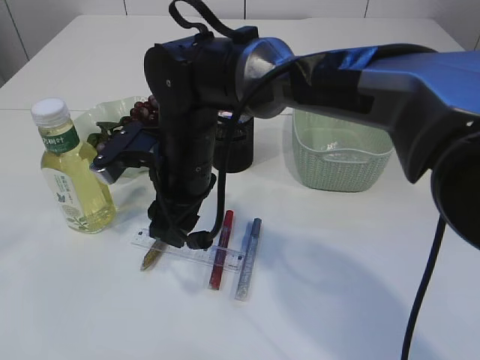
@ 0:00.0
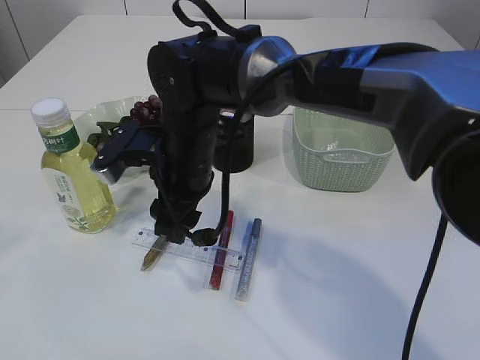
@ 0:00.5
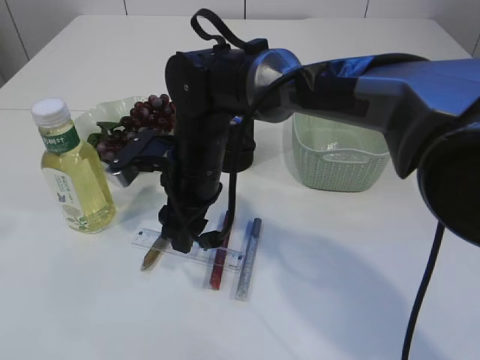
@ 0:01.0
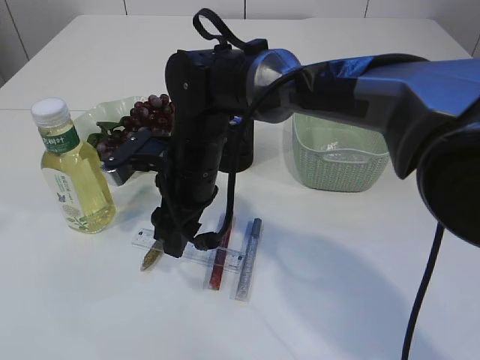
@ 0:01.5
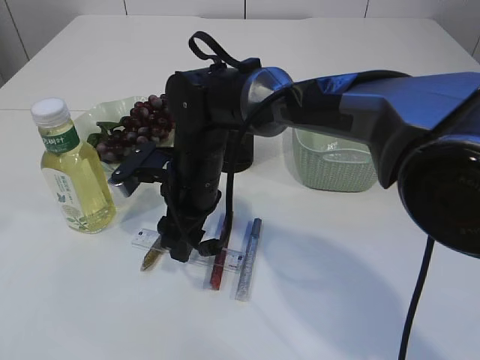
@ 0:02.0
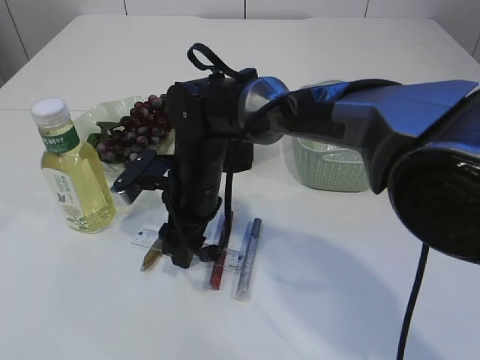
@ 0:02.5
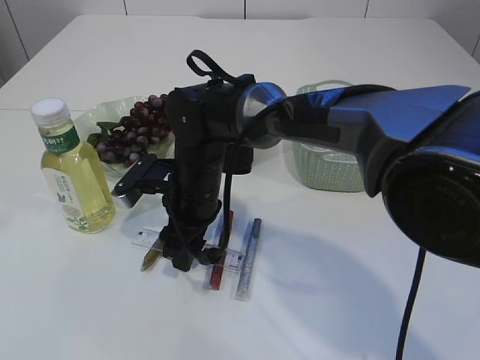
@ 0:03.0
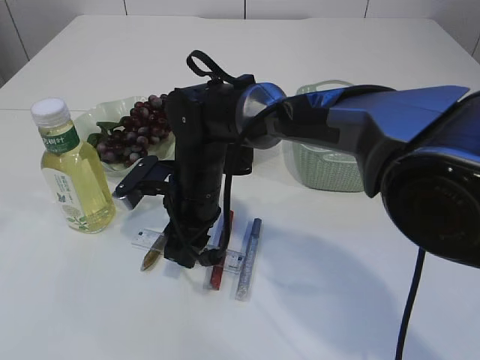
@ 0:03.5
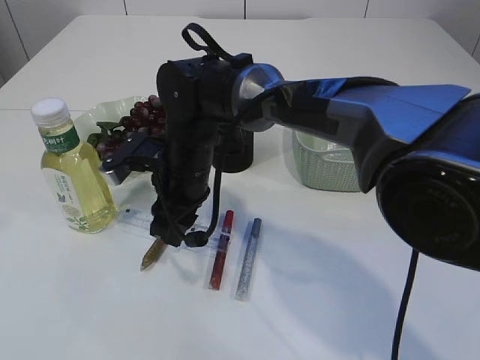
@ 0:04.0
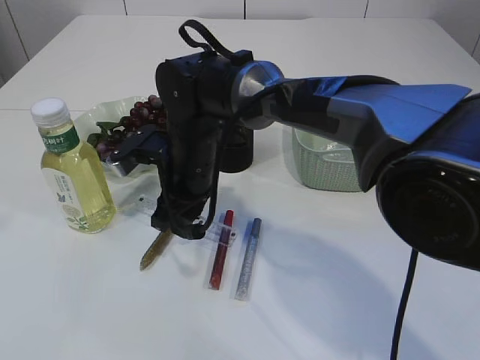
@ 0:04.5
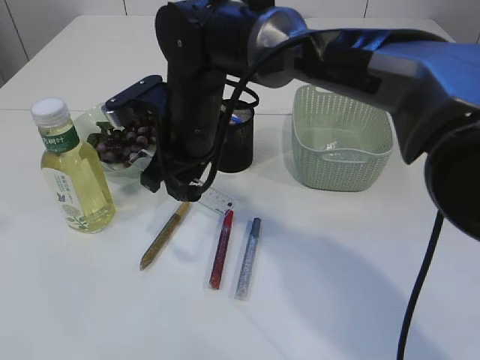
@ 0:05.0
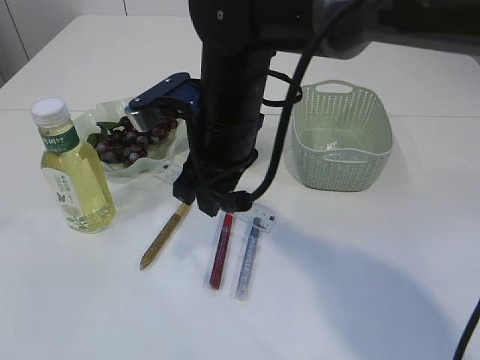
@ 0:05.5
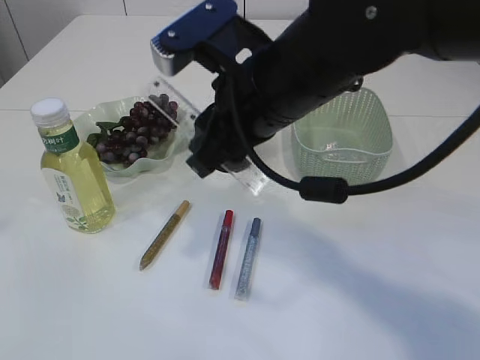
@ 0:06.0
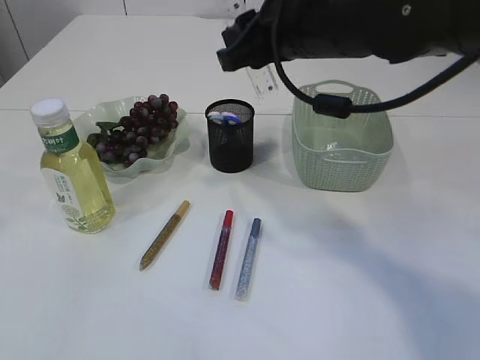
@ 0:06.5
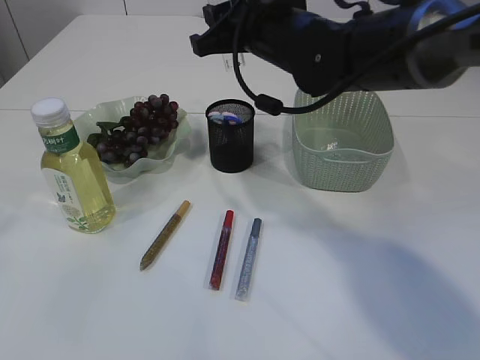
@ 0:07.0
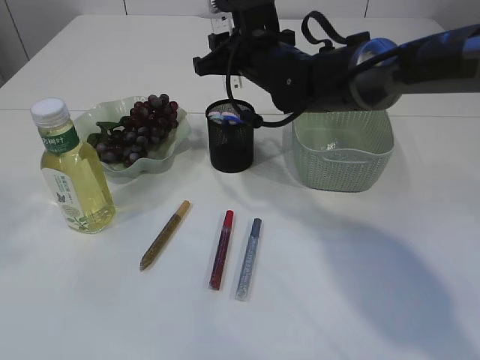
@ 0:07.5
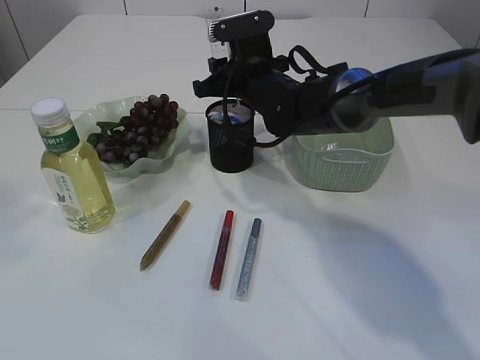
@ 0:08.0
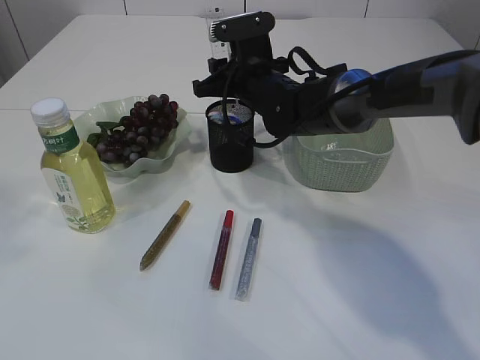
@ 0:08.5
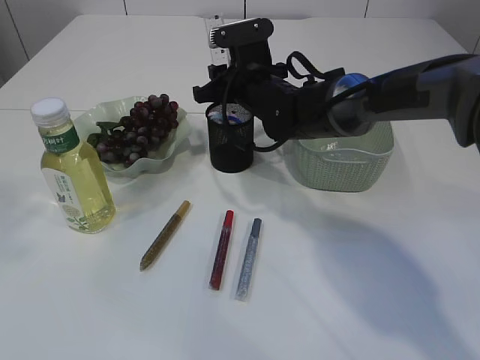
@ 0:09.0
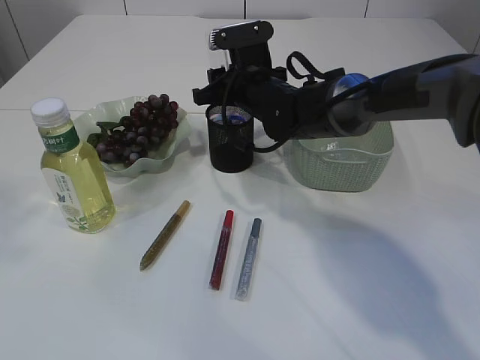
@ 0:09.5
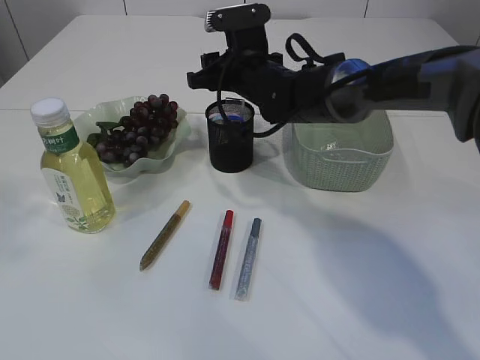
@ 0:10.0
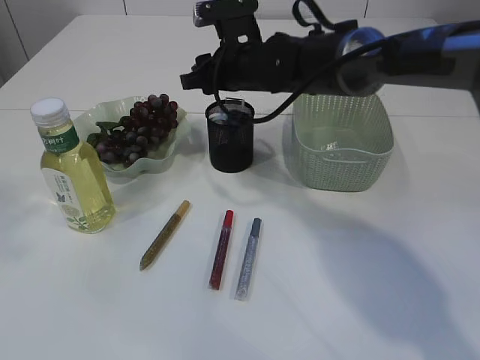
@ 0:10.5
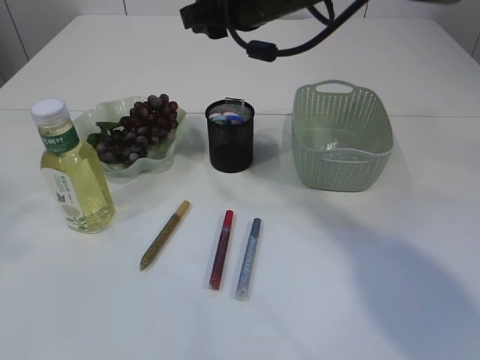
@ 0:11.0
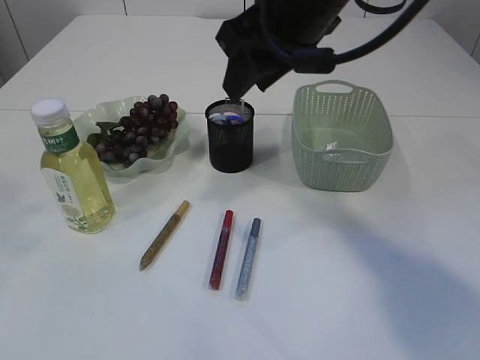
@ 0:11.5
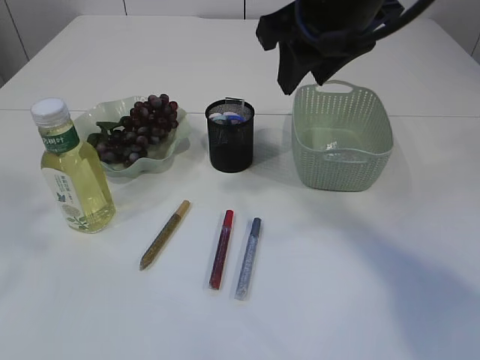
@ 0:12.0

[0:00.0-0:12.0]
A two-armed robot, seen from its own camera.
Step, 0:00.0 to 0:04.5: pick up the ruler.
Step, 0:05.0 to 0:10.5: Place the ruler into the pen holder.
0:00.0 to 0:02.0: The grippers move only a little.
0:02.0 to 0:04.0: The right gripper closes up.
0:04.0 to 0:06.0: The right gripper heads upward, backward and to the right, covering roughly 20 cm.
0:06.0 to 0:08.0: The right gripper is displaced forward and downward by some 20 cm.
0:08.0 to 0:10.0: The two grippers keep their place.
0:10.0 to 0:12.0: The right gripper travels upward and backward by approximately 20 cm.

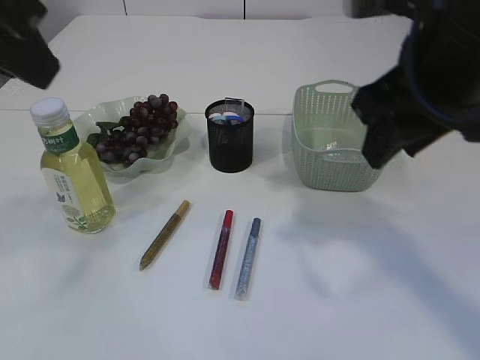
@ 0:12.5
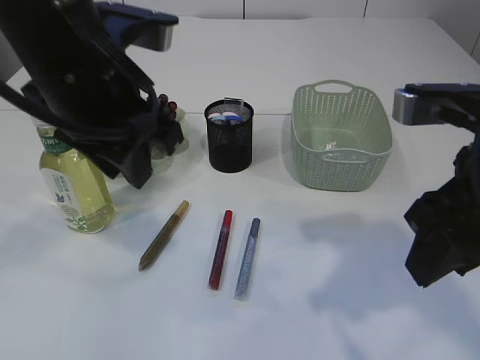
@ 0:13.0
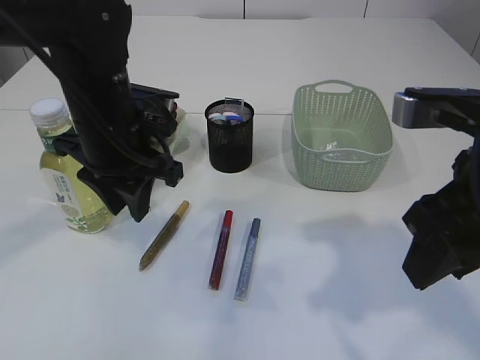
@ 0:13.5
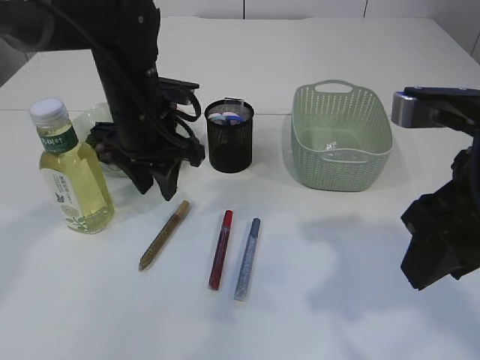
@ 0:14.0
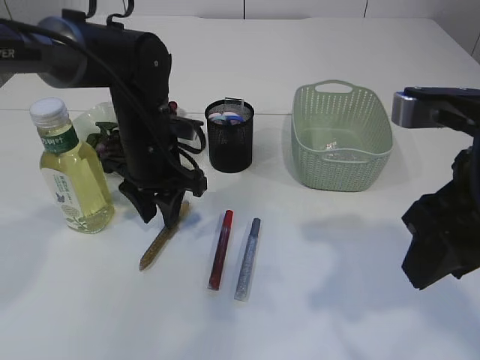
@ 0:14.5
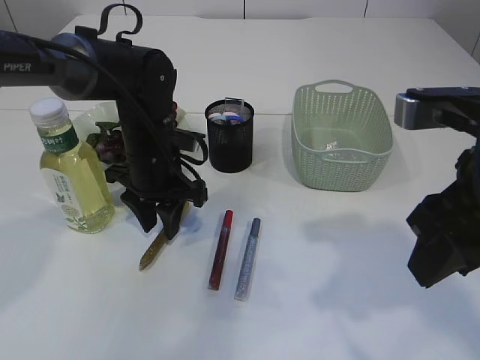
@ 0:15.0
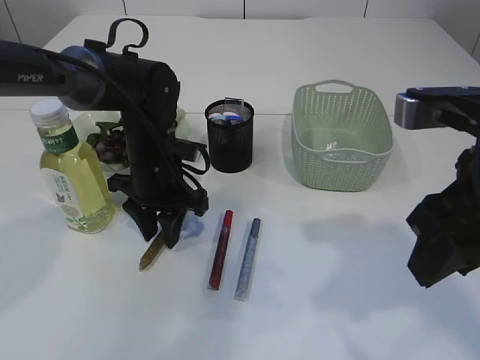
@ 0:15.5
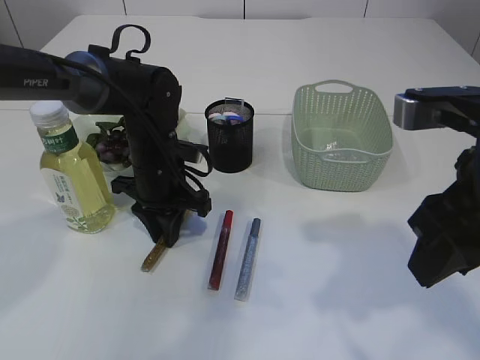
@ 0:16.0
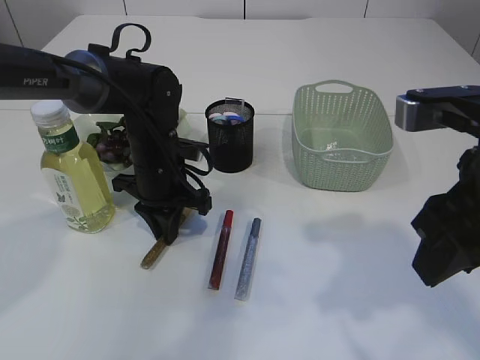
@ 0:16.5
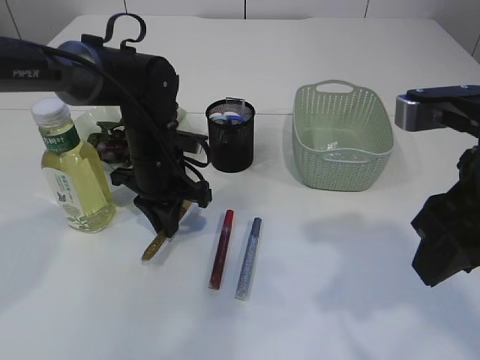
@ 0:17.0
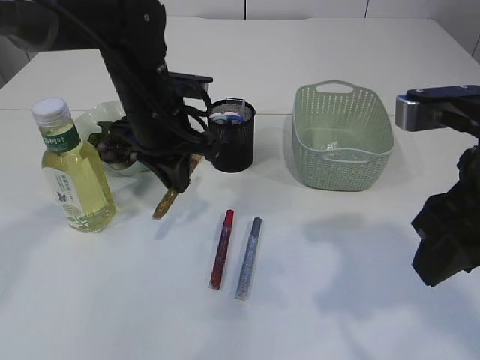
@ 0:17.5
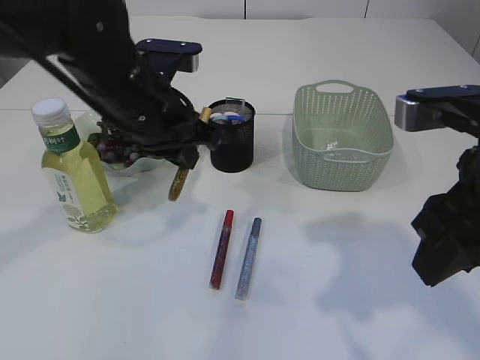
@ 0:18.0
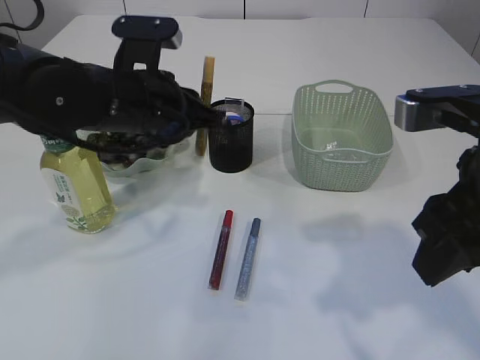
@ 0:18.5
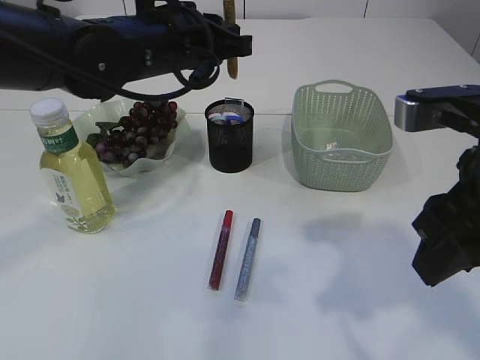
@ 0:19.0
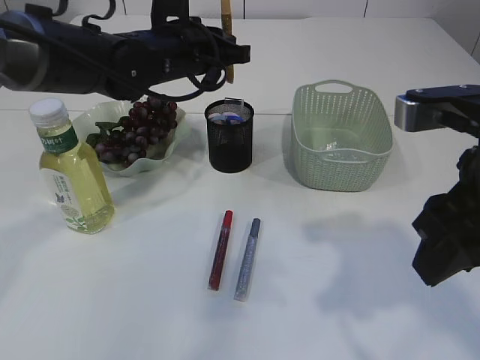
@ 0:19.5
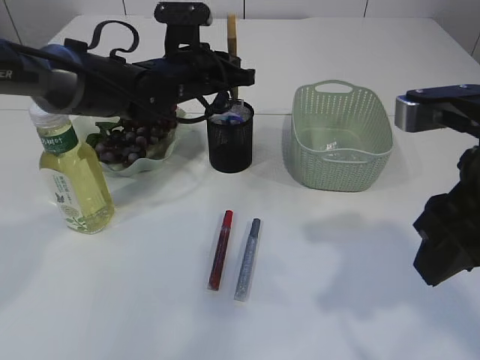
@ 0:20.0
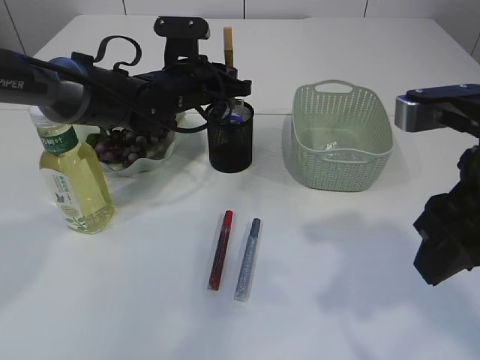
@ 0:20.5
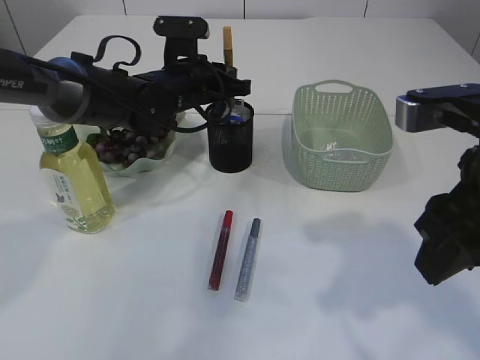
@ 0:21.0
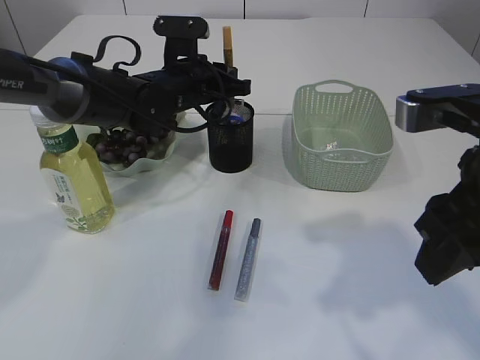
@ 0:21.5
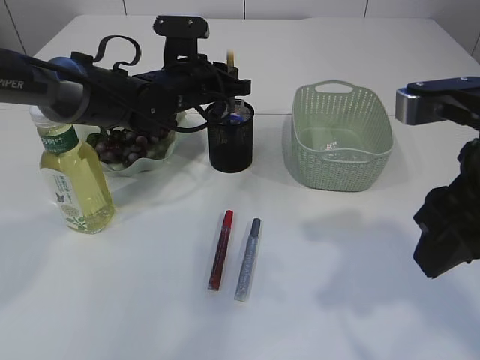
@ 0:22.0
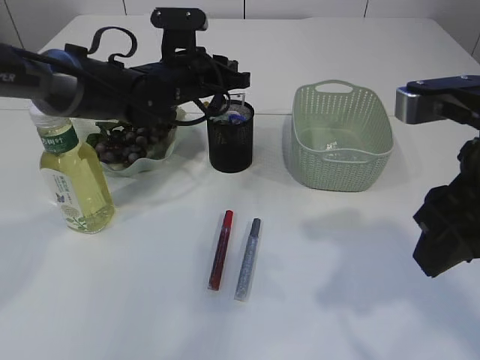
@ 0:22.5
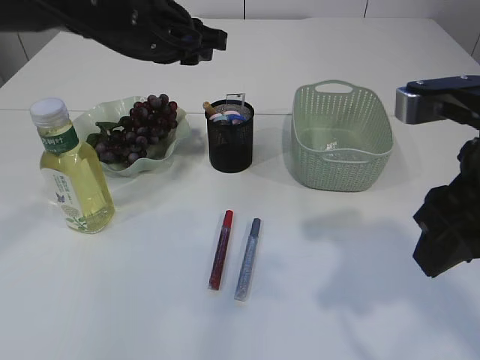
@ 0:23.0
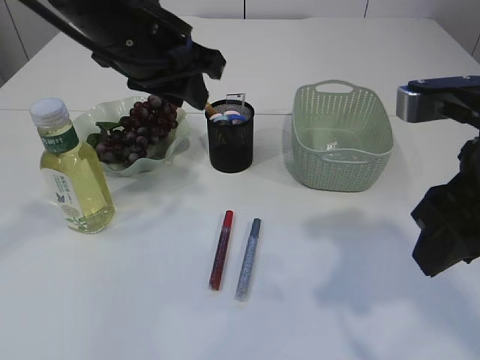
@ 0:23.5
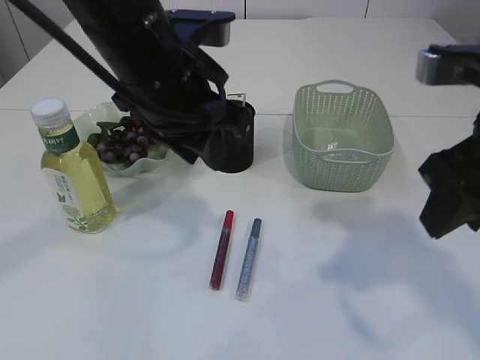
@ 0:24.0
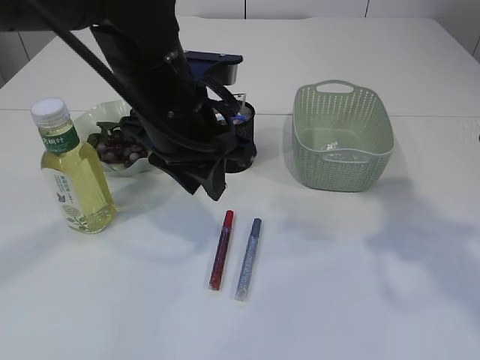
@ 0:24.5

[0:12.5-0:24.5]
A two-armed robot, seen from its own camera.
Step, 0:12.5 to 0:17.0: pick up the yellow glue.
Step, 0:17.5 to 0:22.5: place the yellow glue into the pen holder.
0:12.5 to 0:14.5: The right gripper heads backward and downward, covering some 10 cm. Meanwhile the left gripper goes roughly 30 cm downward and forward.
0:14.5 to 0:16.5: The left gripper closes.
0:16.5 to 0:18.5: The left gripper goes roughly 15 cm upward and backward.
0:18.5 to 0:20.5: The left gripper heads forward and downward, covering some 15 cm.
0:20.5 to 0:22.5: The two grippers keep their place.
0:22.5 to 0:24.5: The left gripper shifts about 15 cm backward and upward, while the right gripper shifts some 5 cm to the right.

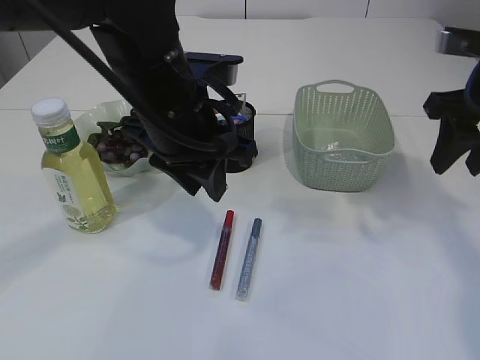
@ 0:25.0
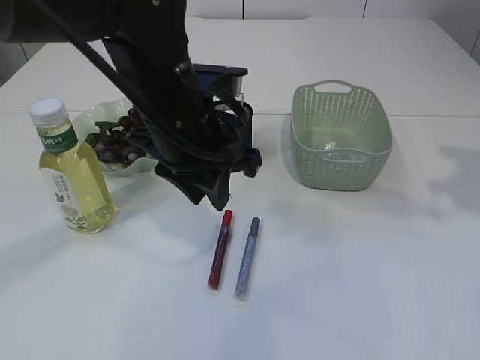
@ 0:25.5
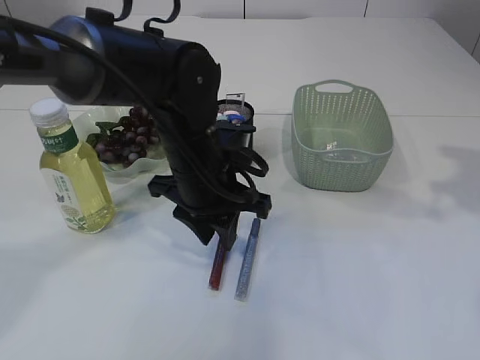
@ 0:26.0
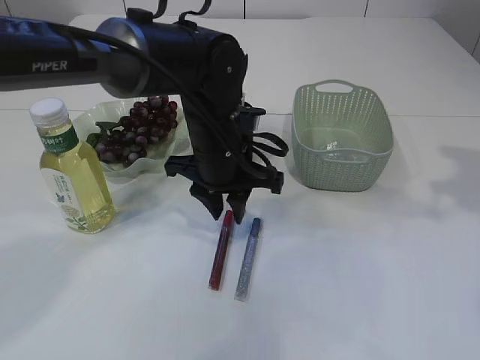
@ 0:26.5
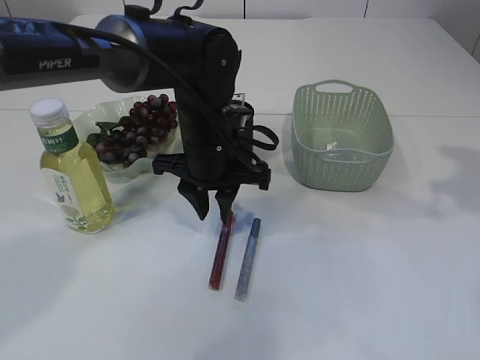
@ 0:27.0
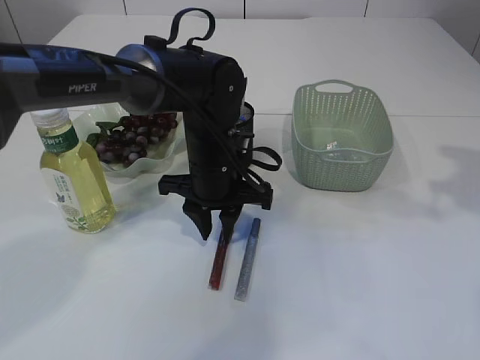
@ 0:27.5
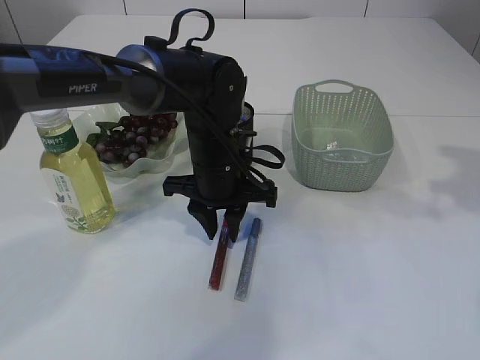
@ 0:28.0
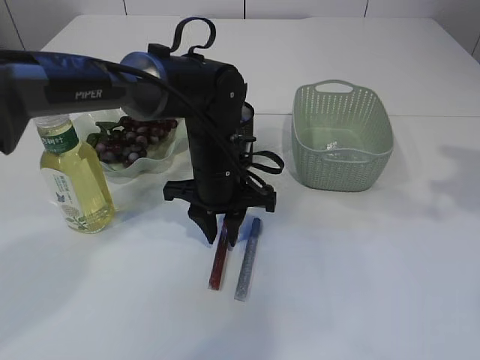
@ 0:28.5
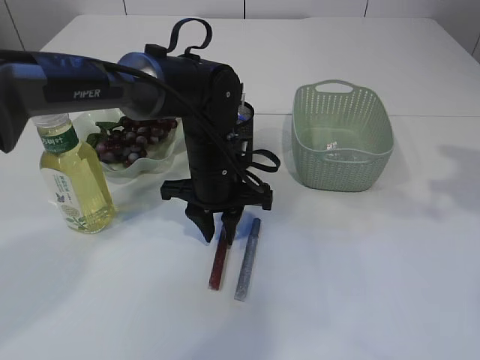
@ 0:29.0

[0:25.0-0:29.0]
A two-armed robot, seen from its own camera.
0:25.0 to 0:27.0: The right gripper travels to the right by approximately 10 cm, while the left gripper heads downward and forward, covering approximately 10 cm.
0:27.0 to 0:29.0: The grippers stay close to where they were, moving slightly.
